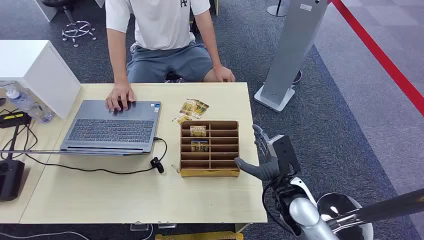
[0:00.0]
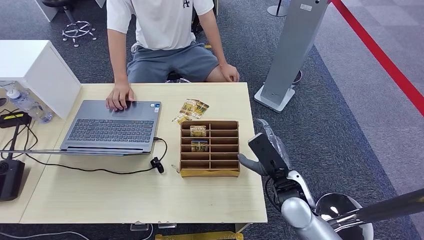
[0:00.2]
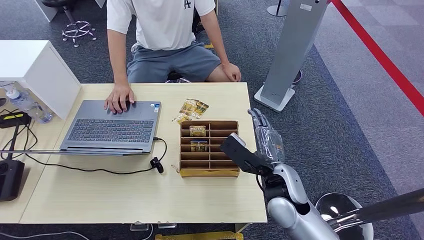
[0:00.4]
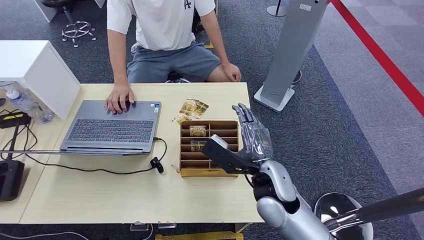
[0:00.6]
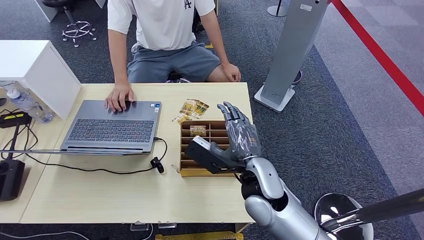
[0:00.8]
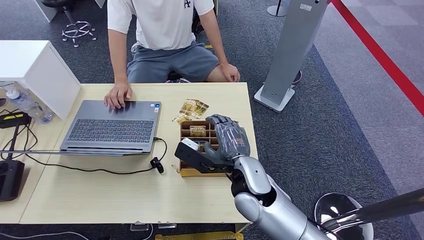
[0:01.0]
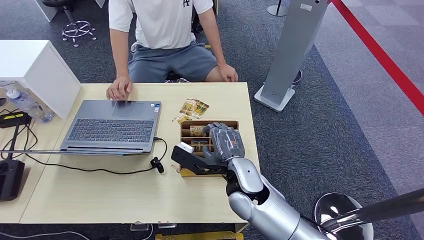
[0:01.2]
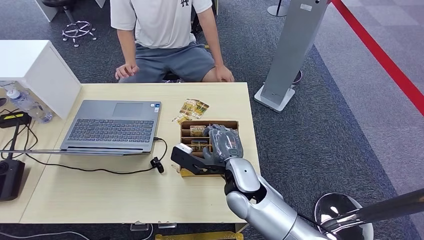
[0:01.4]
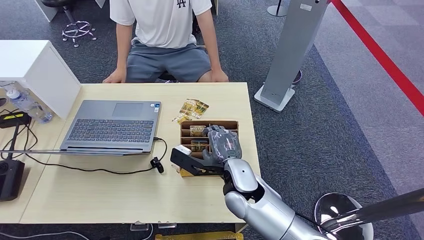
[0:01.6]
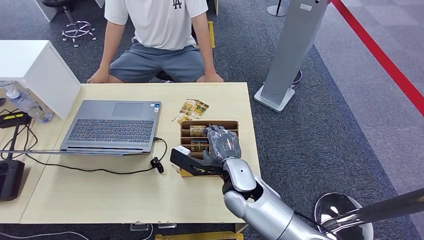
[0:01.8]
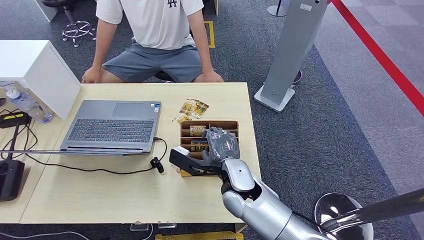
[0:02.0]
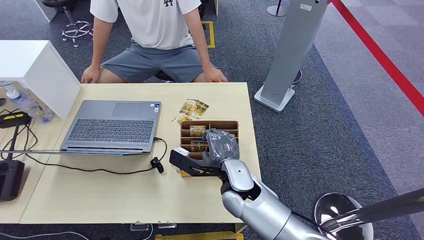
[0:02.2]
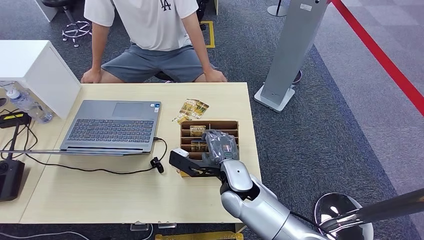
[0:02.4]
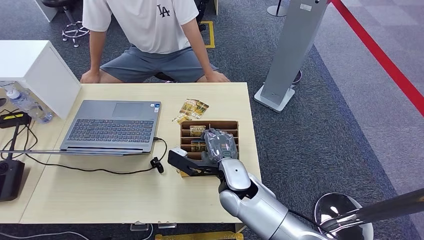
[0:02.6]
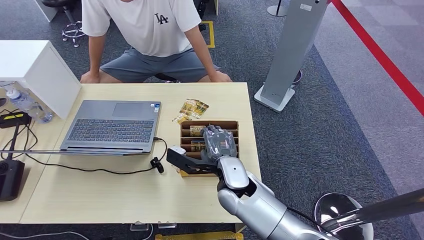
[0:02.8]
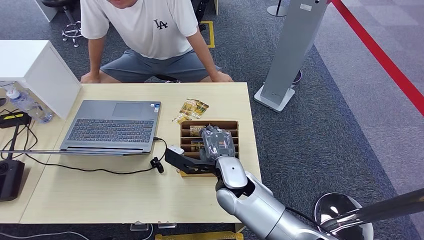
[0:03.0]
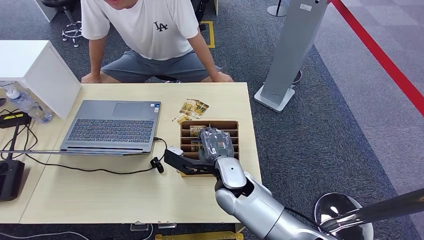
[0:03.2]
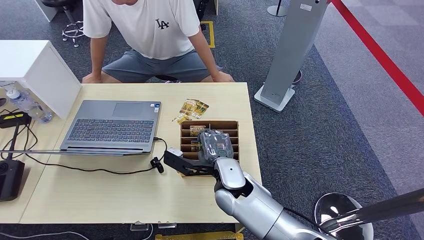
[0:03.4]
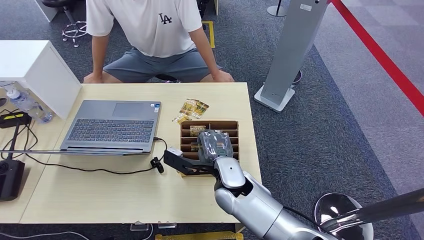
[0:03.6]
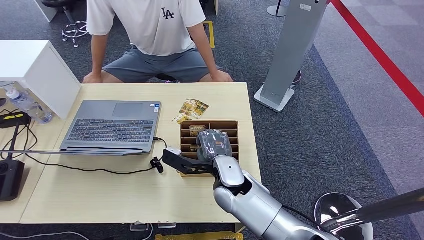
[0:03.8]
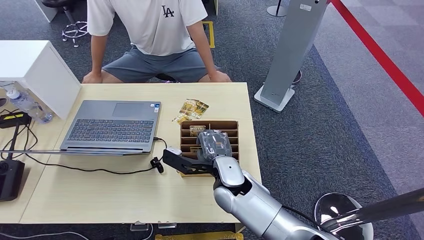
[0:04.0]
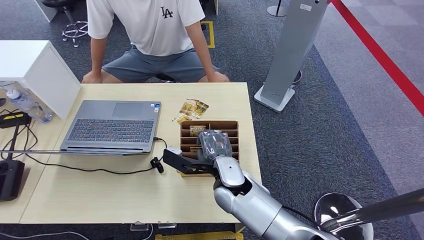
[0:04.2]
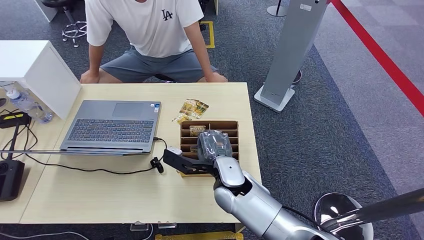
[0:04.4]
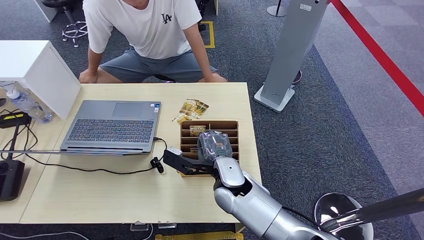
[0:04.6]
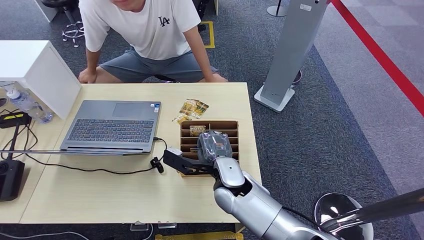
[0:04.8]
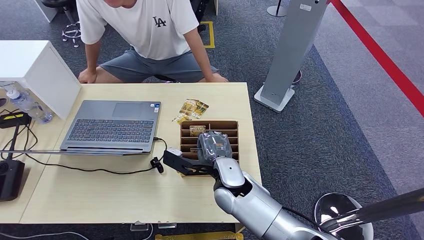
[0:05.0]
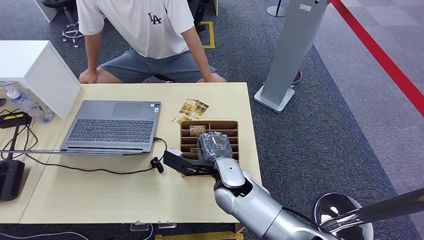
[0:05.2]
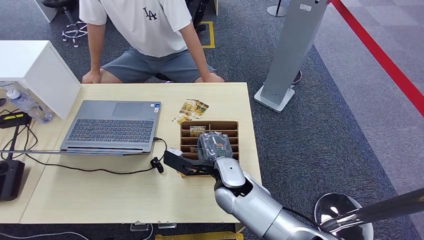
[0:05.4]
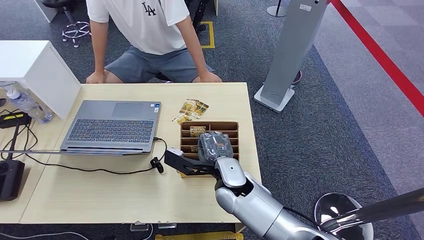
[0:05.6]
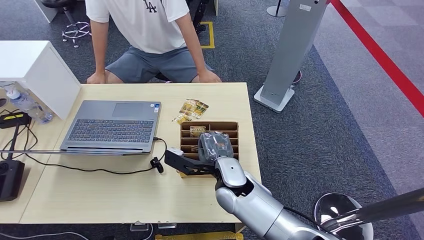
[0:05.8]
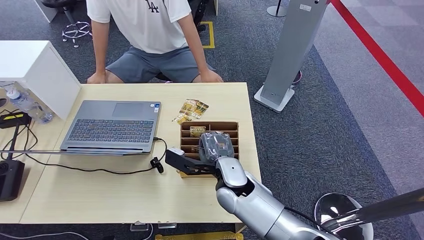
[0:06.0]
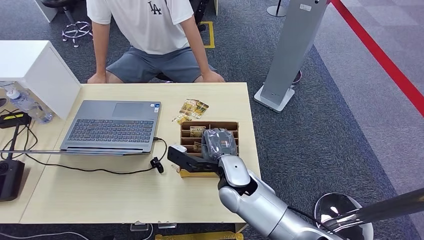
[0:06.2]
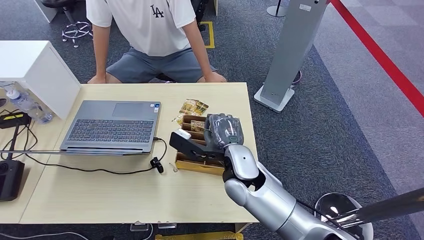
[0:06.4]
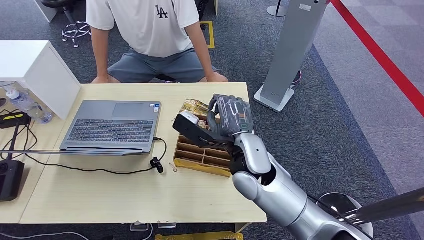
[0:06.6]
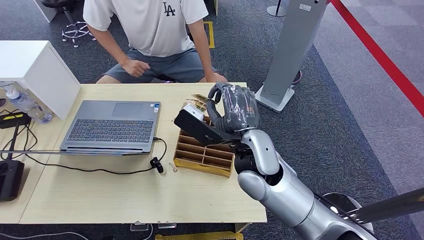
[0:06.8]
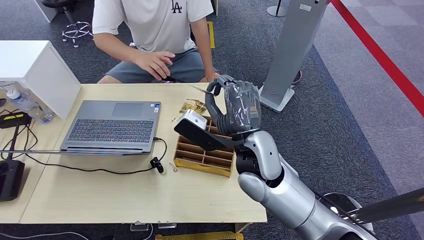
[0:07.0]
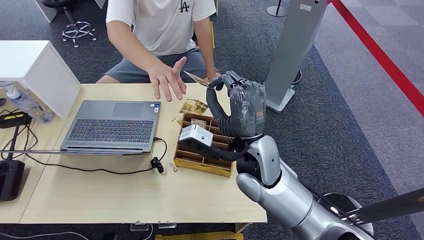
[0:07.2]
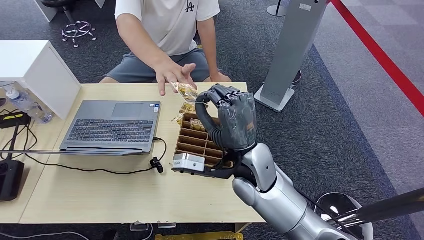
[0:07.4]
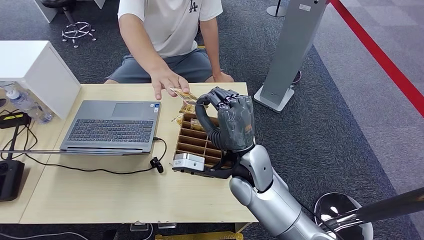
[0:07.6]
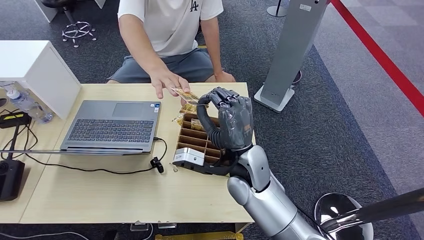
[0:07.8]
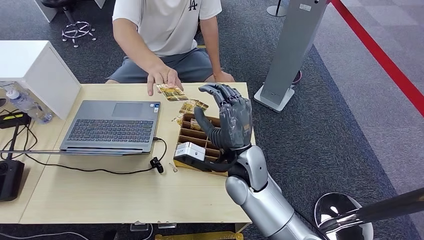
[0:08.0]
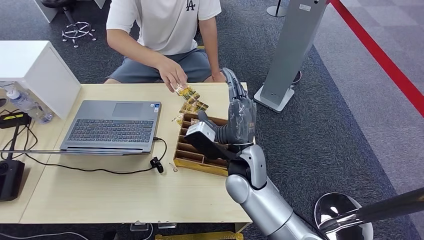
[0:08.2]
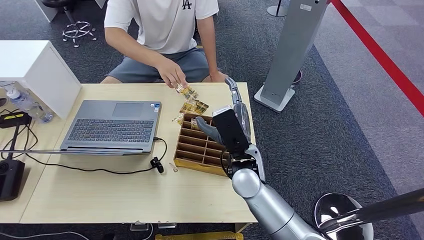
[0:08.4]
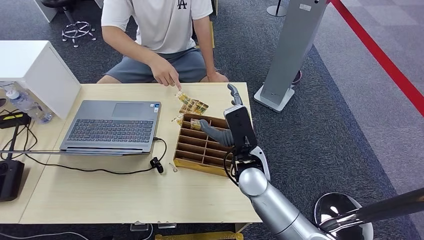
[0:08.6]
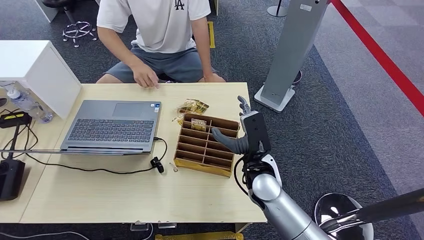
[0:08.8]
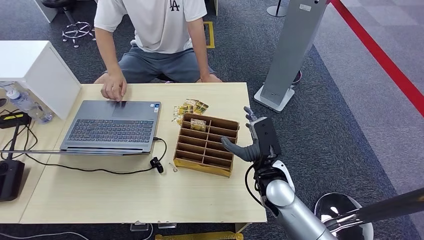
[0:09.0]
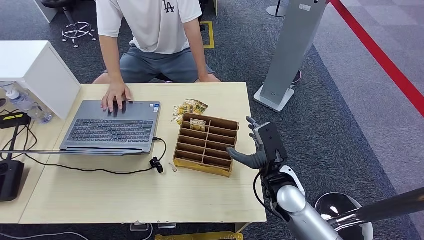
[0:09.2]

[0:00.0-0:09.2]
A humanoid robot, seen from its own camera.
Step, 0:00.0 to 0:06.6: Pick up the key card from the card box.
Step, 0:06.8 to 0:09.2: Hand the key card to the target.
0:01.6 to 0:03.0: The hands move only a little.
0:03.0 to 0:04.6: Both hands stay put.
0:04.6 to 0:06.2: The two hands keep their place.
0:06.2 to 0:07.6: The right hand is displaced upward by approximately 5 cm.
0:07.6 to 0:09.2: The right hand heads to the right and downward, covering about 15 cm.
